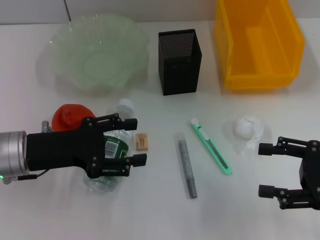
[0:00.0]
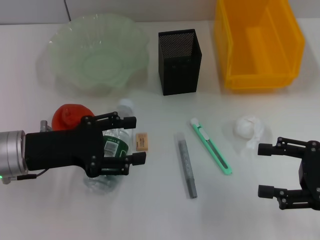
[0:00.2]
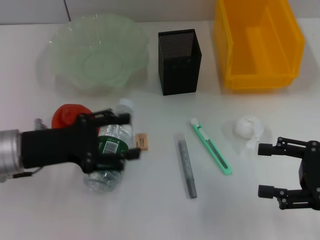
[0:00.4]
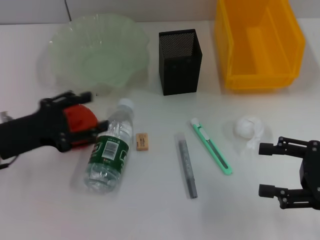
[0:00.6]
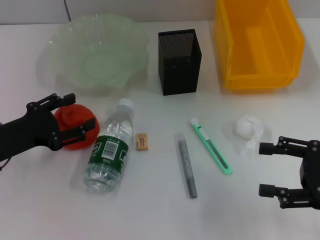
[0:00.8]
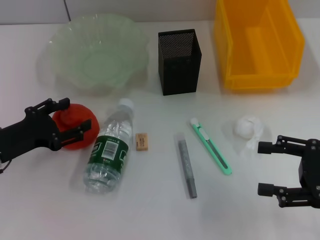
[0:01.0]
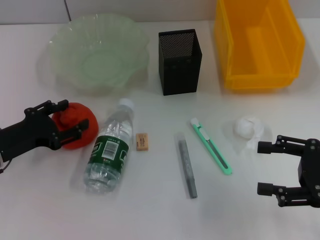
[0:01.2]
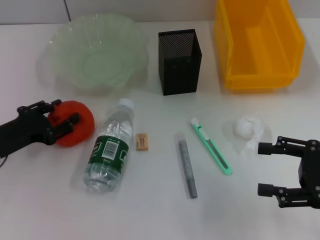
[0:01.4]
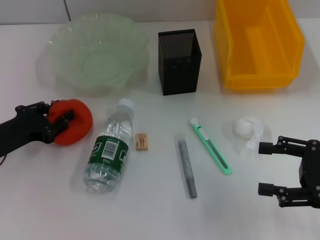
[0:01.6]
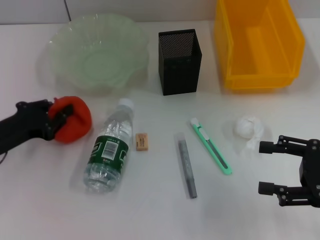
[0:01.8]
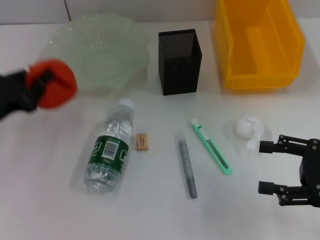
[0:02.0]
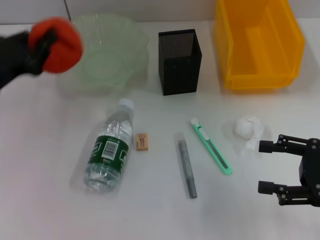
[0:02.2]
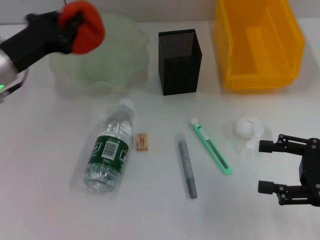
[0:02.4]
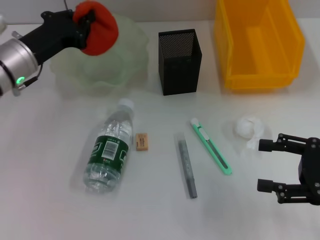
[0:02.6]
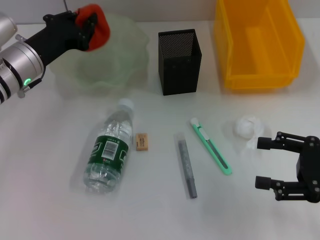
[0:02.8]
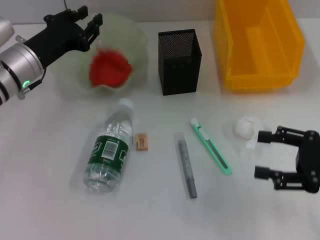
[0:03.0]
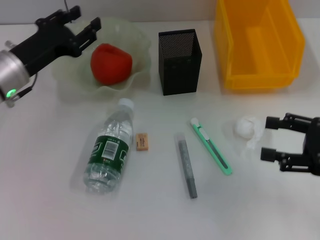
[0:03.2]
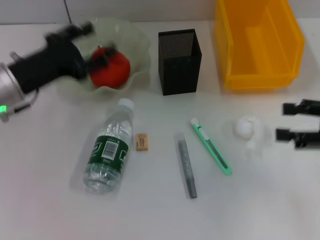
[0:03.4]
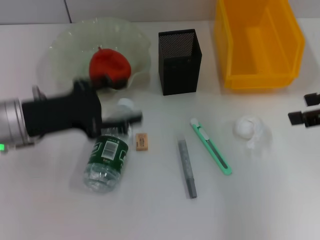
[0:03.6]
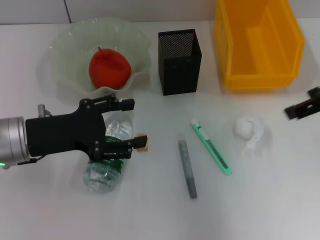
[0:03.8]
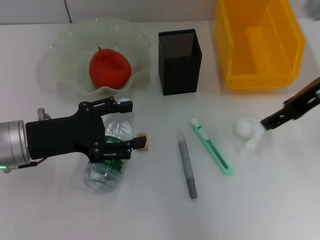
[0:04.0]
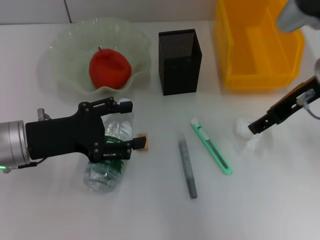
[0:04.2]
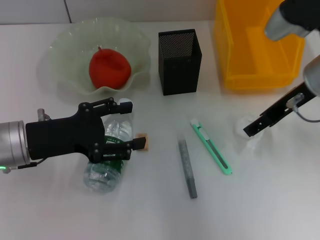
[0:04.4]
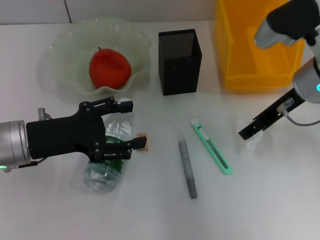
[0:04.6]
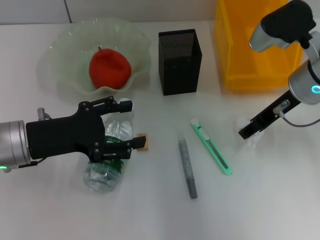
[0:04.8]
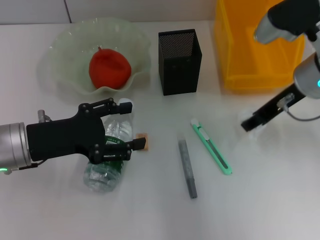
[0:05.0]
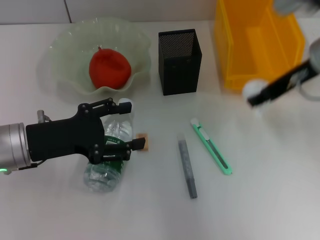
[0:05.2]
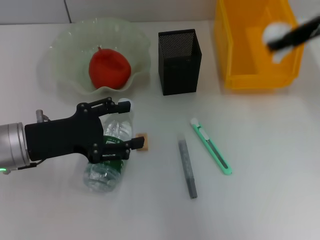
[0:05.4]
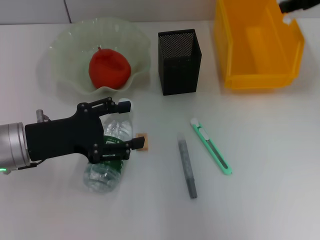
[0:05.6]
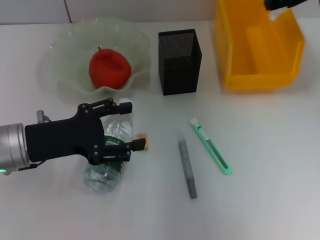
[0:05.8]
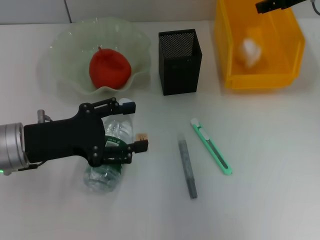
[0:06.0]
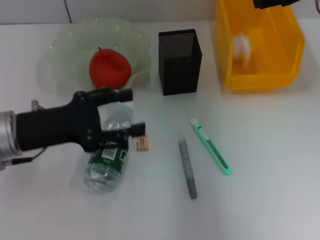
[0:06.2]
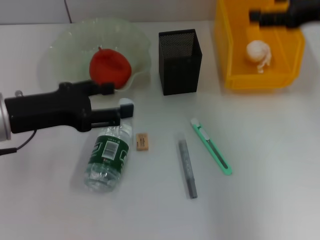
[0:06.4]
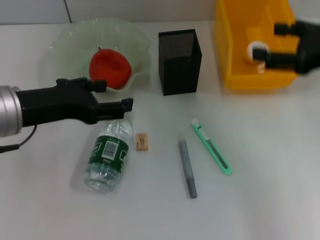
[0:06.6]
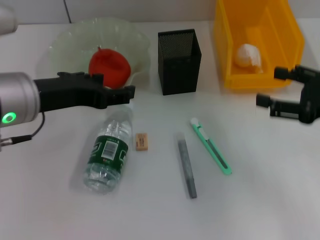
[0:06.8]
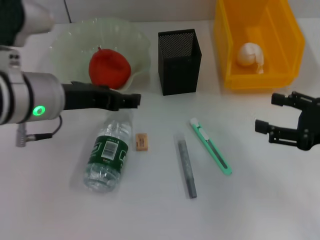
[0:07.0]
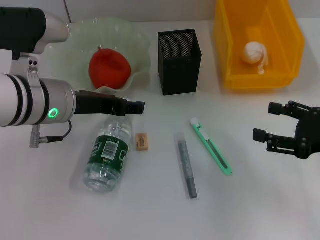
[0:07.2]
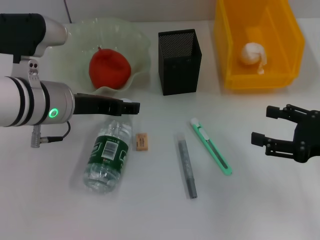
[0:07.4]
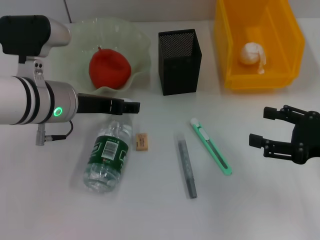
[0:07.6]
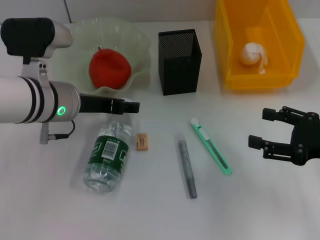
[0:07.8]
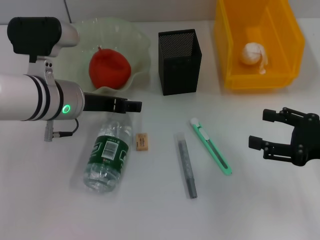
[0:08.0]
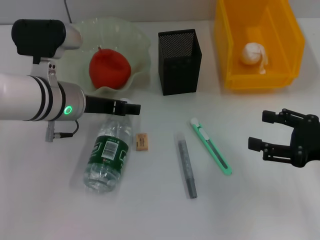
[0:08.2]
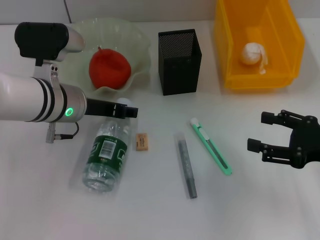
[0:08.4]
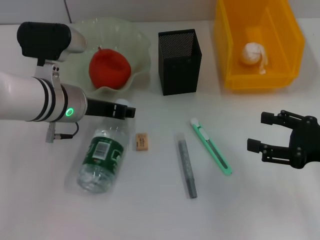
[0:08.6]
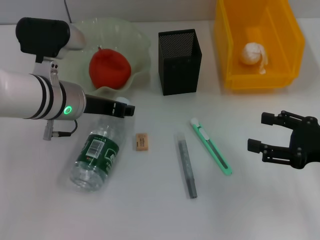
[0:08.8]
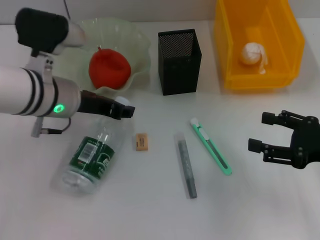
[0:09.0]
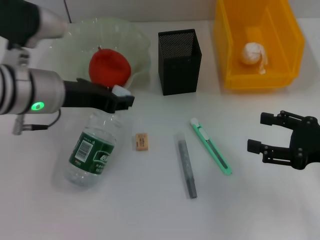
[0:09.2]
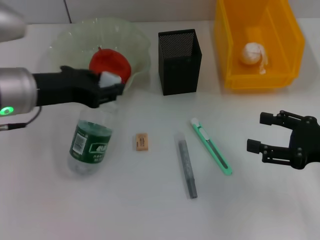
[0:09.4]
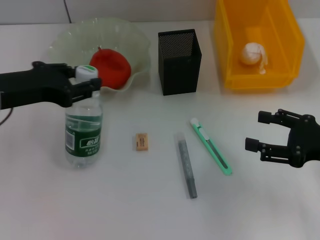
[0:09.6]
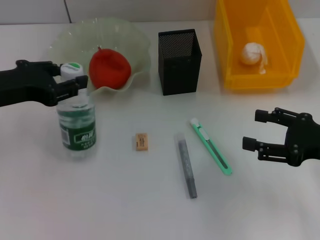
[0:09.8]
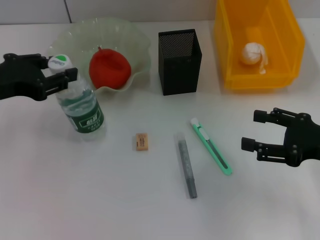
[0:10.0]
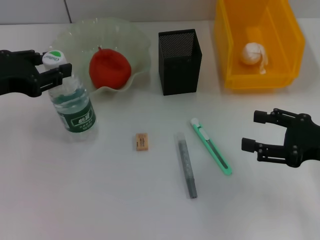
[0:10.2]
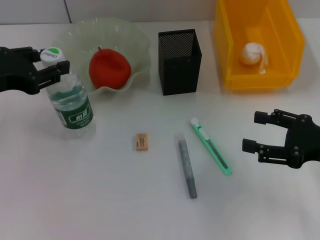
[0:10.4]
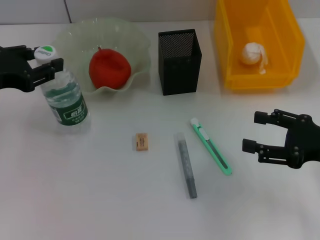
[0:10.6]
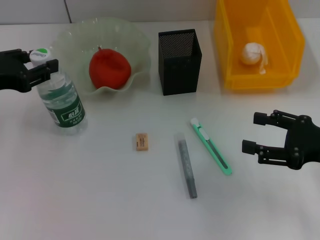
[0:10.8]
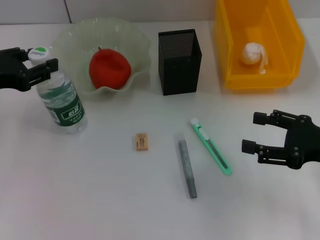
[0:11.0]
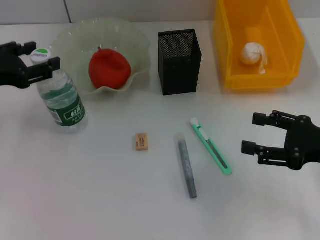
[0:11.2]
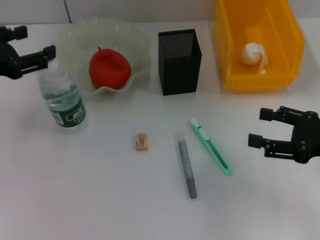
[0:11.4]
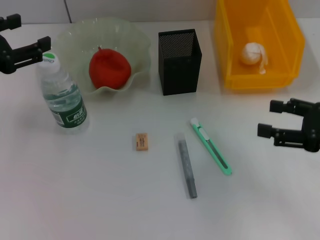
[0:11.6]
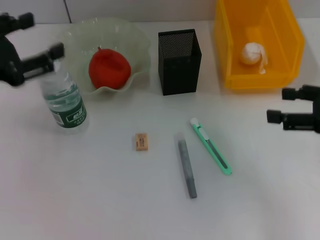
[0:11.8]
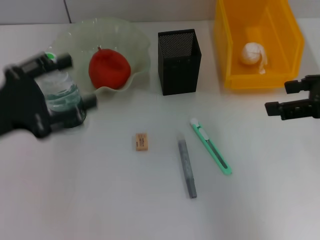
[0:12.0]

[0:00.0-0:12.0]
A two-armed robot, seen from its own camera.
Step, 0.0 to 1.6 s: Grab the orange with the left hand.
Step, 1.8 to 3.2 s: Place the orange into the fruit bowl with the left hand.
Step, 3.4 to 4.6 s: Grab the paper ball with the right hand.
Step, 5.0 to 6.2 s: Place the paper ball into the trash can with the right hand.
Step, 6.4 to 8.6 s: Grab the water bottle with the left hand.
Step, 8.8 to 11.2 s: Place the water bottle on the table with the left hand.
0.0 to 1.6 s: The left gripper goes about 10 cm to the left and downward, and closes up.
1.6 to 3.0 s: The left gripper is displaced forward, to the right and upward by roughly 15 cm, and closes up.
3.0 to 4.4 s: The left gripper shifts some 10 cm backward, and opens up. Meanwhile the right gripper travels forward, to the left and upward by some 20 cm.
4.4 to 6.0 s: The right gripper travels forward and upward by some 10 cm.
6.0 to 7.6 s: The right gripper moves backward and downward, some 25 cm. The left gripper travels to the right and forward by about 10 cm, and travels upward and back again, about 10 cm each way.
7.6 to 9.0 s: The left gripper closes up.
9.0 to 10.4 s: The left gripper travels to the left, upward and backward by about 15 cm.
10.4 to 12.0 s: The left gripper moves backward, approximately 5 cm, and opens. The right gripper moves upward, approximately 10 cm.

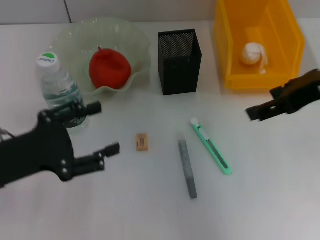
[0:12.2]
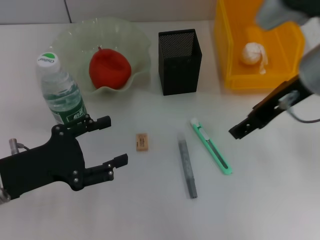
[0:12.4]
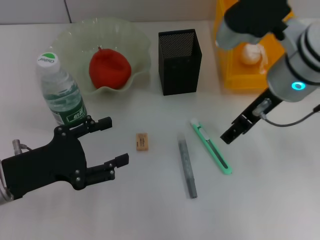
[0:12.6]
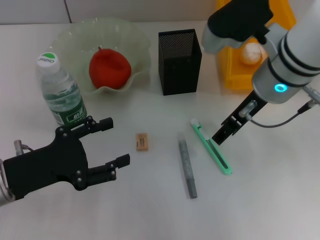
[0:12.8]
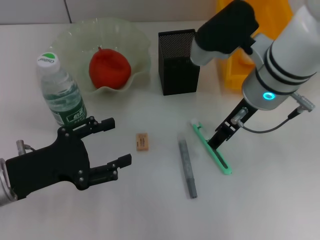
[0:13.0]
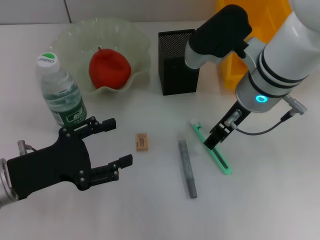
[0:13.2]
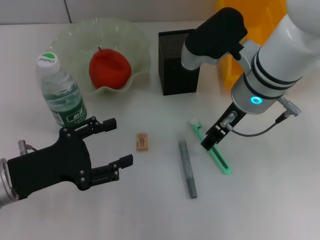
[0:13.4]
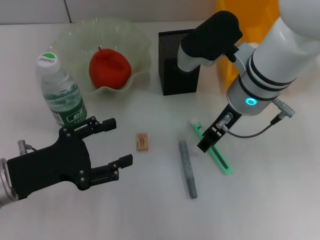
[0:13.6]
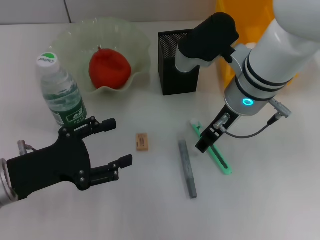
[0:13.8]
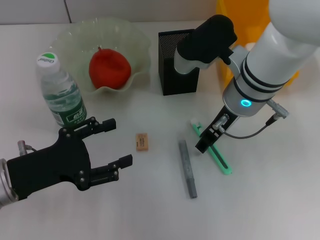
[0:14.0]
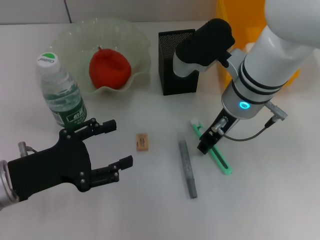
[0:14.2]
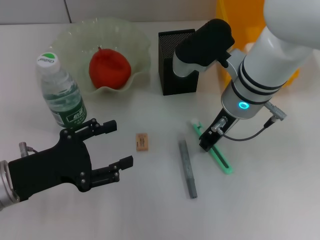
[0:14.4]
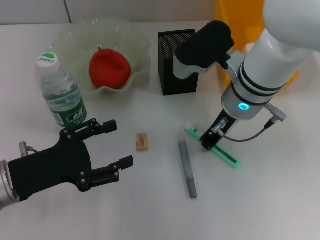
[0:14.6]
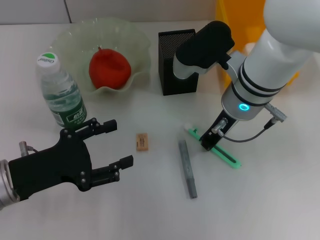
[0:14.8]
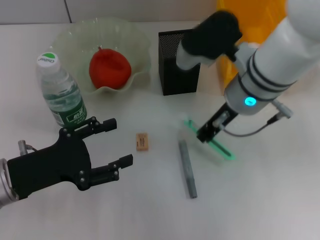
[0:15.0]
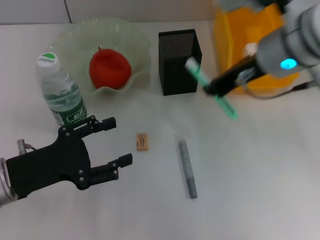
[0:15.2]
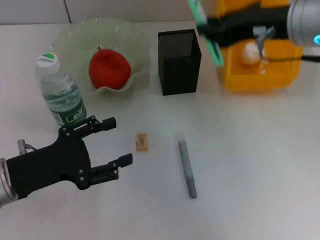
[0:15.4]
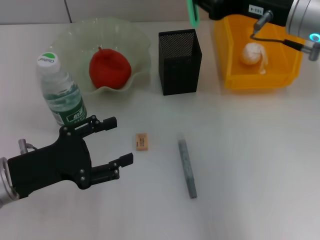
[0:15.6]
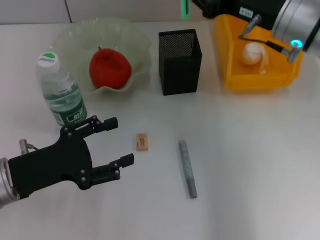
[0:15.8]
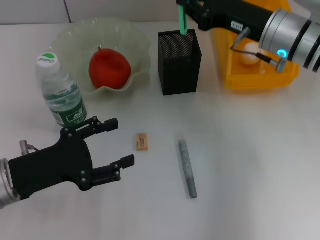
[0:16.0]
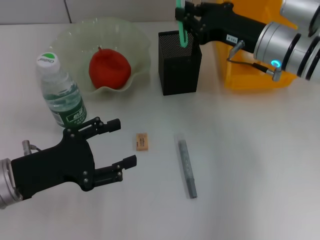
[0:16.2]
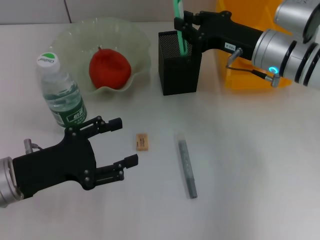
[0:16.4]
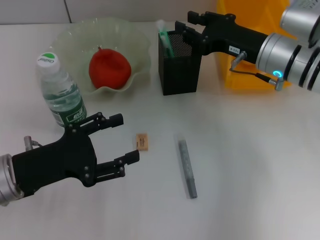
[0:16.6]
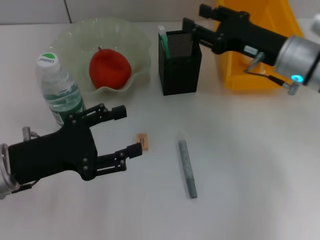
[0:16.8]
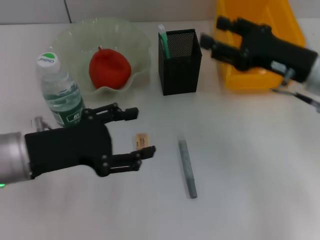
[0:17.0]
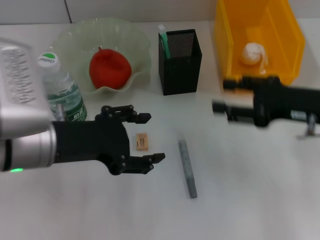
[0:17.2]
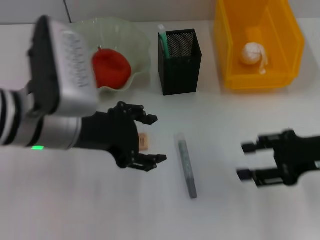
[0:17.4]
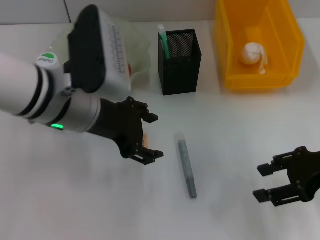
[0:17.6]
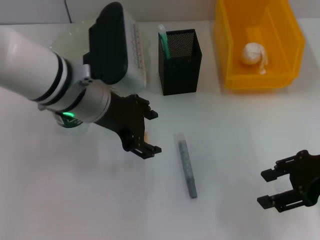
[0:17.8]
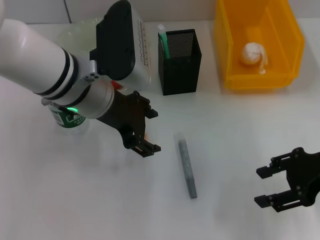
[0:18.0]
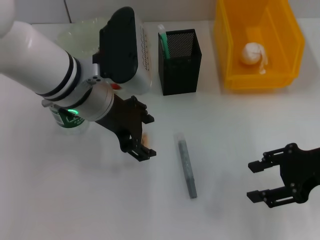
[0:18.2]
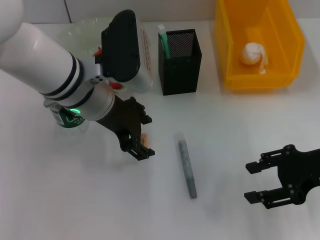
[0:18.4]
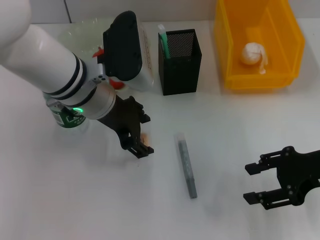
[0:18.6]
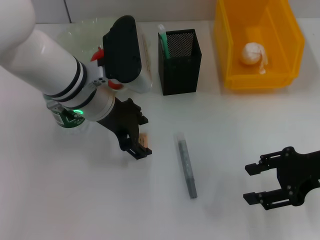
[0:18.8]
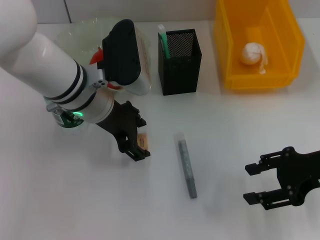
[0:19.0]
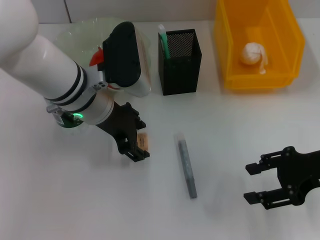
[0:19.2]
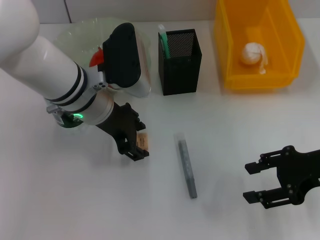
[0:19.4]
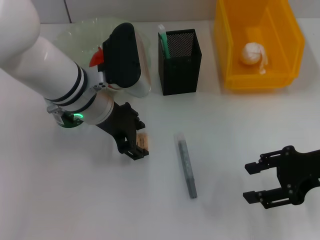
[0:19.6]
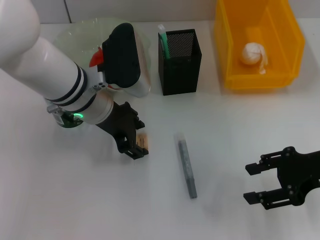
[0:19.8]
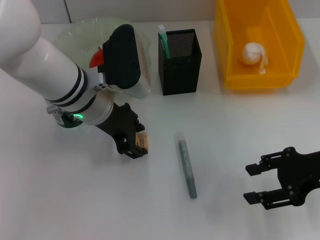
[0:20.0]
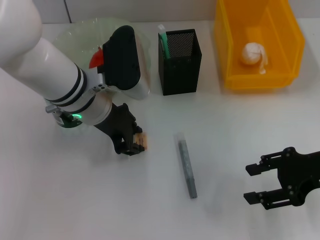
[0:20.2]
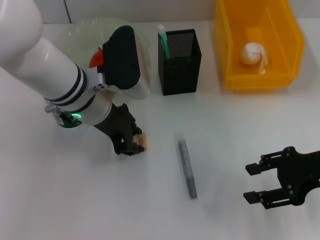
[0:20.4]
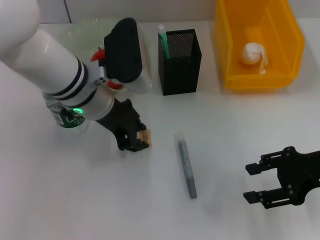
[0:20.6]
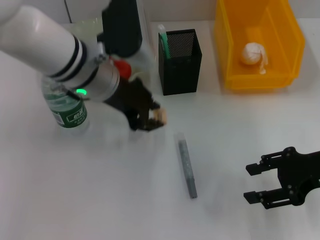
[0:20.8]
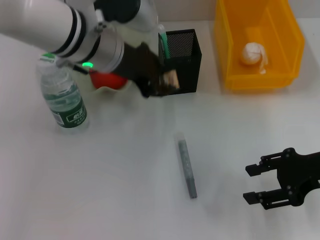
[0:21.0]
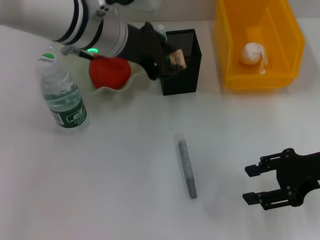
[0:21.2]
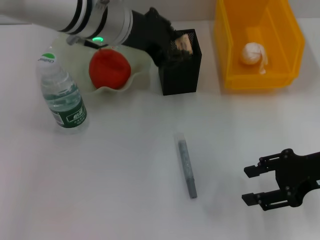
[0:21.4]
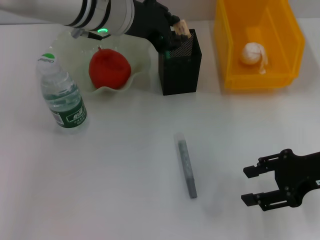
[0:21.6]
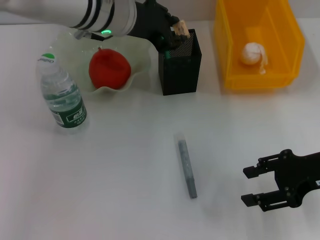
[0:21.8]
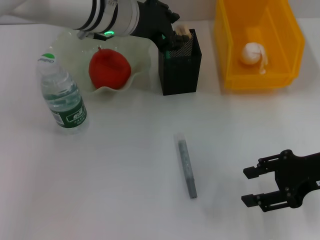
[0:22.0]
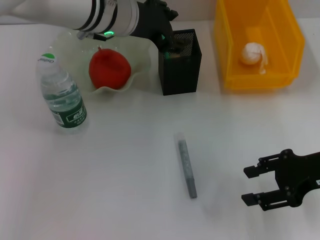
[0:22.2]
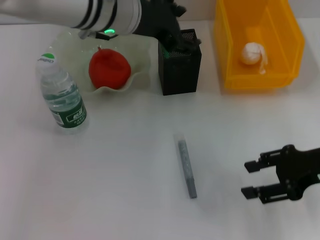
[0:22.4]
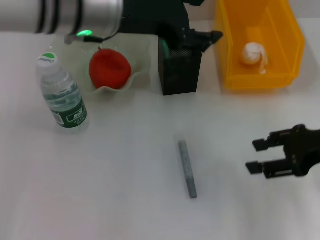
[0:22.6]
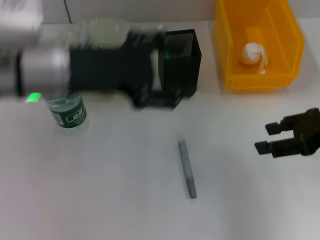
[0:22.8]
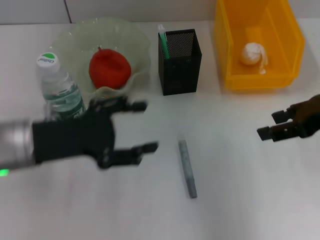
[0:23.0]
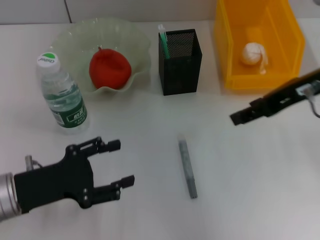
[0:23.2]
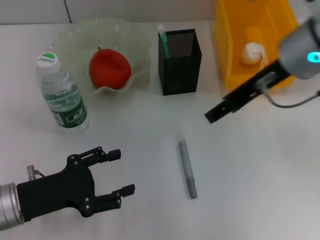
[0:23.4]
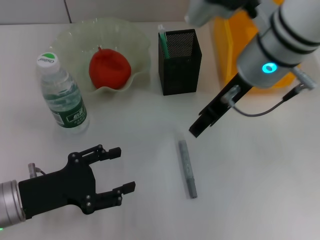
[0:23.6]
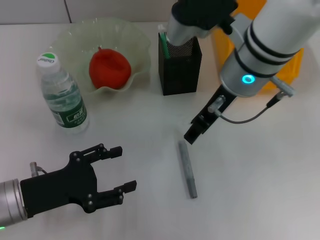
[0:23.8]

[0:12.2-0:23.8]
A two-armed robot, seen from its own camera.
Step, 12.2 to 14.4 s: Grab the blue utility knife with the right hand.
Step, 14.8 to 16.8 s: Place the blue utility knife into the pen holder with the right hand.
Step, 17.0 to 20.4 s: Grab the eraser with the left hand.
Step, 20.6 to 22.2 s: Place the eraser into the pen holder with the left hand.
12.2 to 13.6 s: The right gripper goes about 15 cm to the left and downward.
13.6 to 15.0 s: The right gripper closes up.
15.0 to 16.6 s: The right gripper moves to the right, approximately 10 cm.
16.6 to 18.0 s: The left gripper heads to the right, forward and upward, covering approximately 20 cm; the right gripper goes some 15 cm backward and to the right, and opens its fingers.
18.0 to 19.4 s: There are only small adjustments of the grippers.
19.4 to 21.0 s: The left gripper heads upward, covering approximately 5 cm, and closes its fingers.
21.0 to 22.4 s: The left gripper opens.
22.4 to 23.8 s: The right gripper travels to the left and forward by roughly 20 cm. Meanwhile the left gripper shifts some 30 cm backward, downward and to the left.
